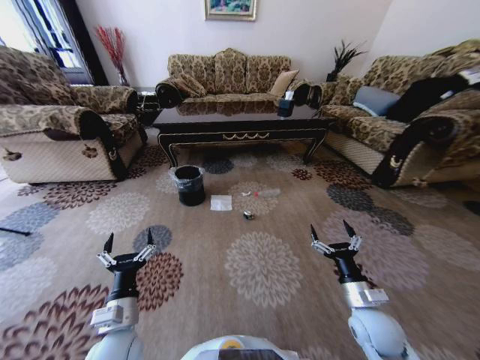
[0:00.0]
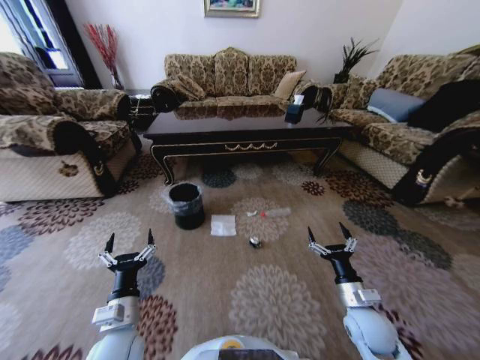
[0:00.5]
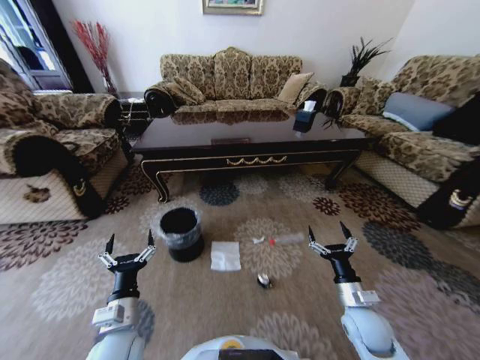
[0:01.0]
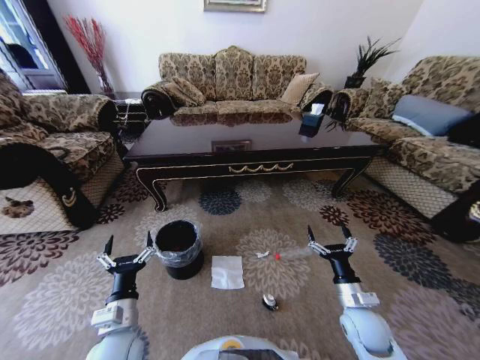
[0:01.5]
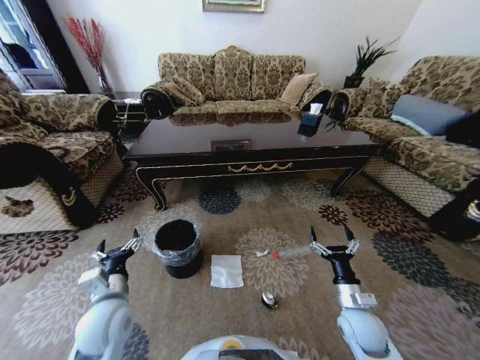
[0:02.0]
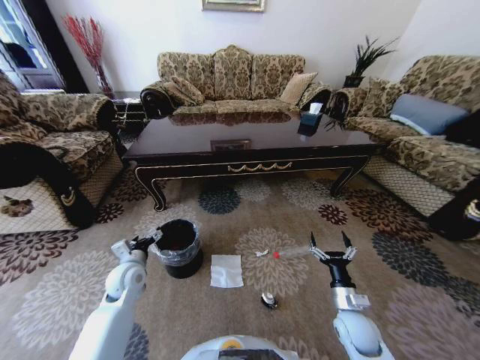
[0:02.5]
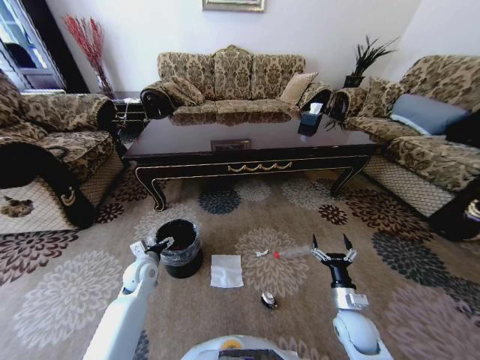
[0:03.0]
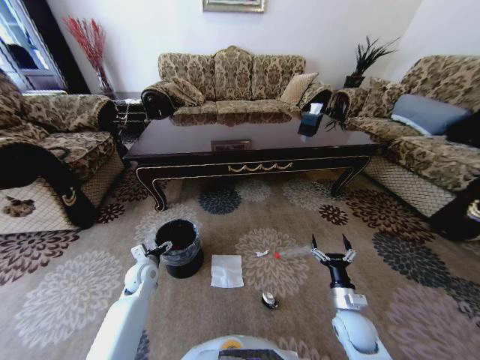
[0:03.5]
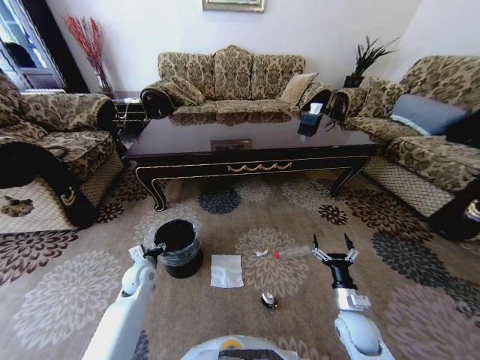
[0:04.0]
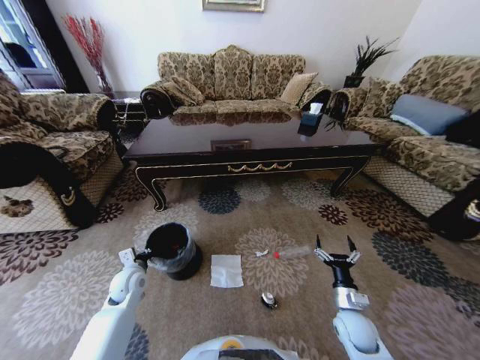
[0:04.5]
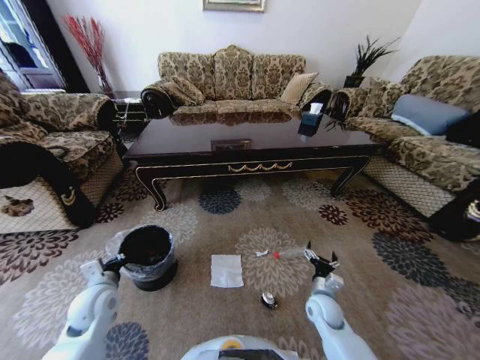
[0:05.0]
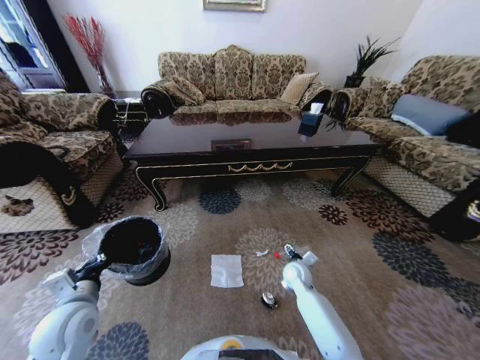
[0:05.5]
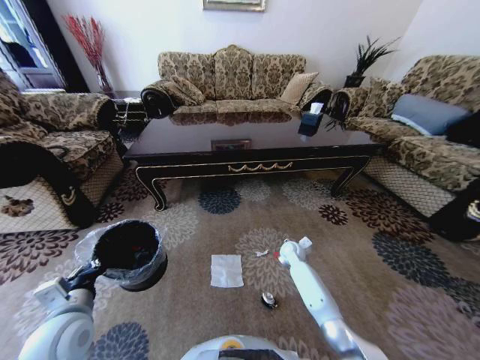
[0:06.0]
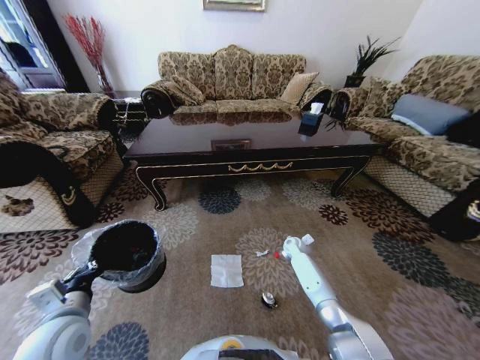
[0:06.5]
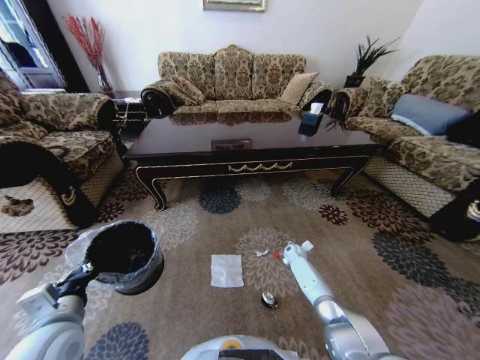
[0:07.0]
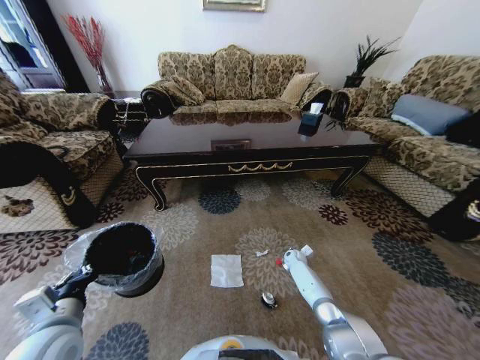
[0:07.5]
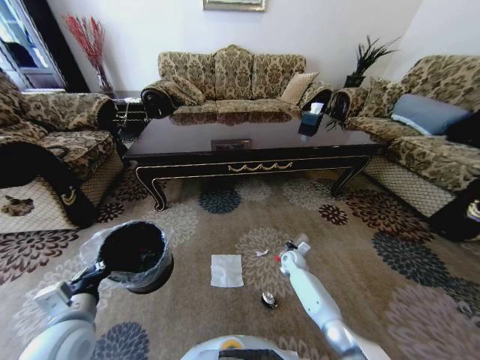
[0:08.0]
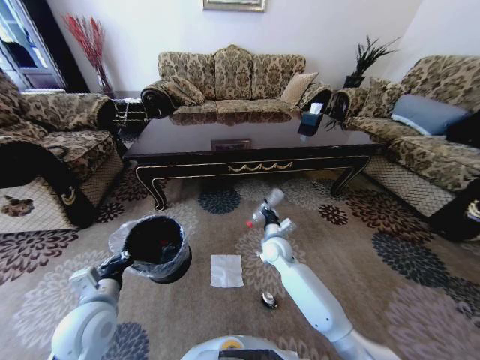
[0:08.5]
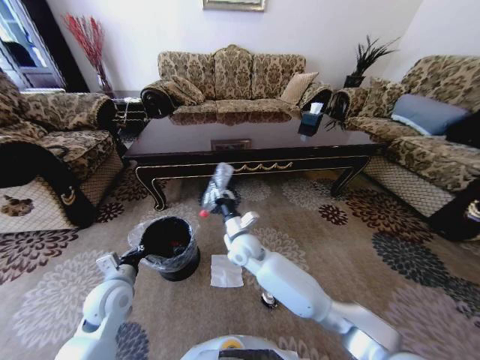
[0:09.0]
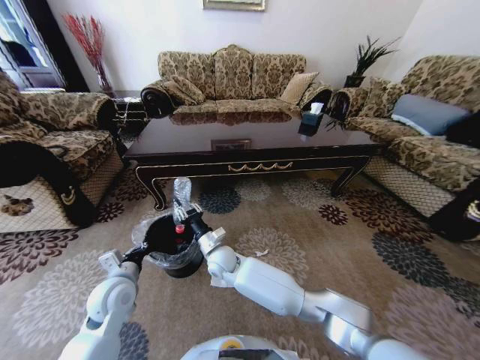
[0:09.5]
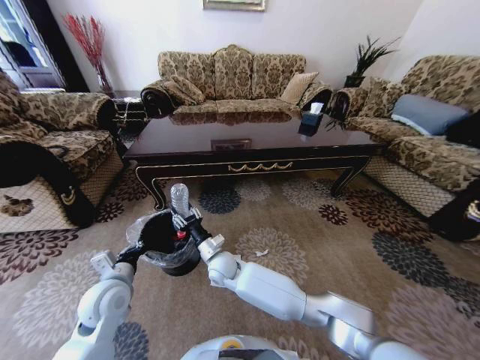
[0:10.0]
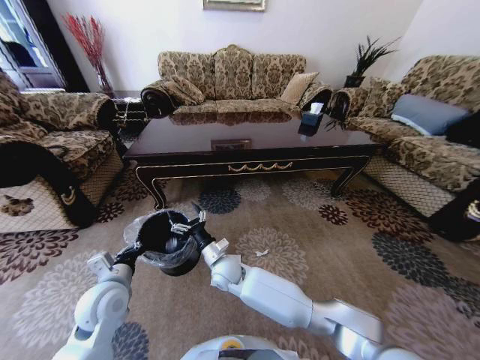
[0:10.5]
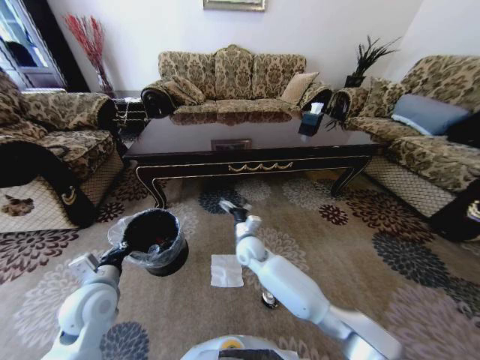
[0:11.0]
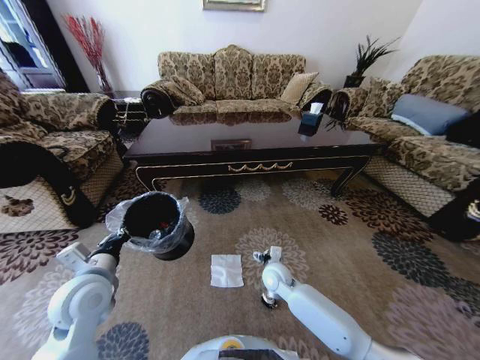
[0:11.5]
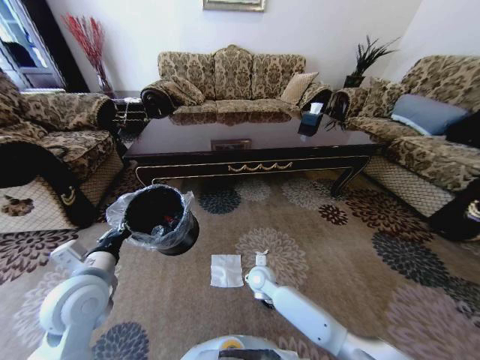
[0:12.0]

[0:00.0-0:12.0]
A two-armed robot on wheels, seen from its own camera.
Task of the whole recording: Move to the front of the table and pick up the trash from the floor, then place it into the trash bin.
0:00.0 to 0:02.0: The left gripper heads forward, covering roughly 5 cm.
0:02.0 to 0:04.0: The left gripper shifts about 20 cm forward and downward, and closes its fingers.
0:04.0 to 0:06.0: The left gripper heads backward and upward, covering about 20 cm, and closes its fingers; the right gripper travels forward by approximately 25 cm.
0:06.0 to 0:08.0: The right gripper closes up.
0:08.0 to 0:10.0: The left gripper heads forward, covering some 10 cm; the right gripper is displaced to the left and upward by roughly 35 cm.
0:10.0 to 0:12.0: The right gripper goes about 15 cm to the right and downward, and opens. The left gripper shifts roughly 10 cm upward.

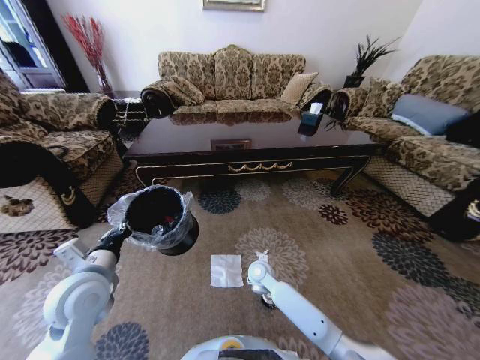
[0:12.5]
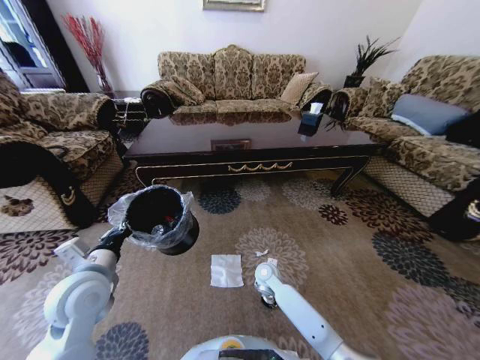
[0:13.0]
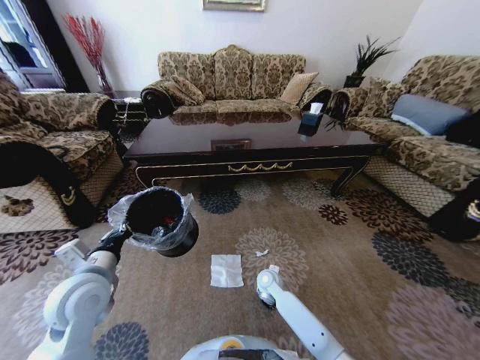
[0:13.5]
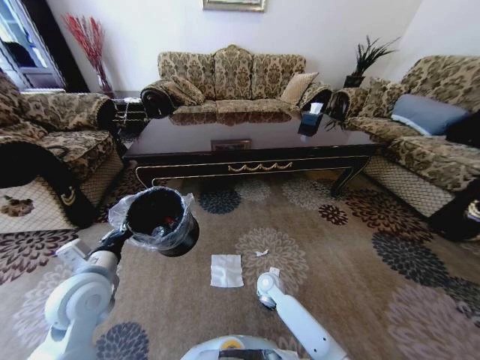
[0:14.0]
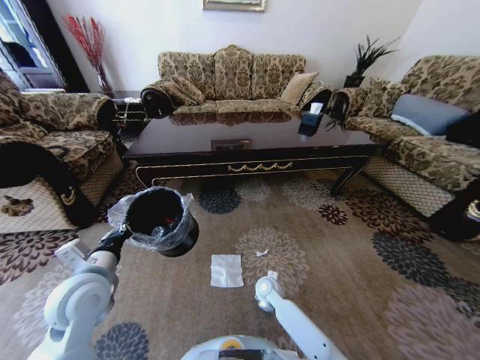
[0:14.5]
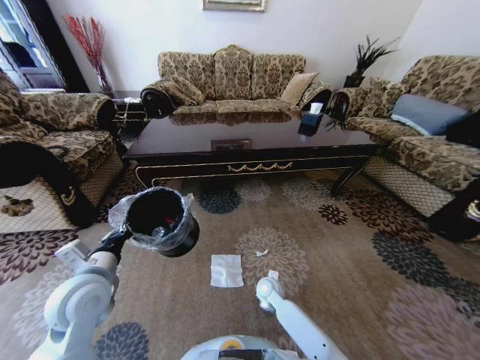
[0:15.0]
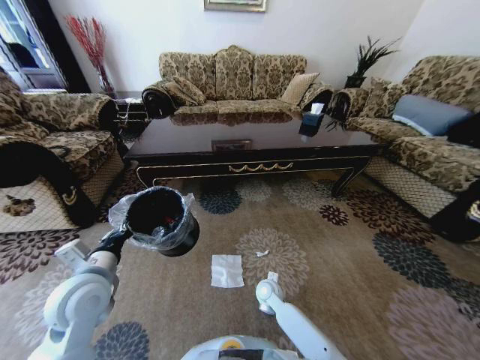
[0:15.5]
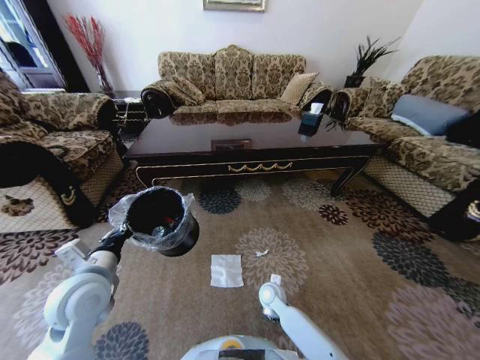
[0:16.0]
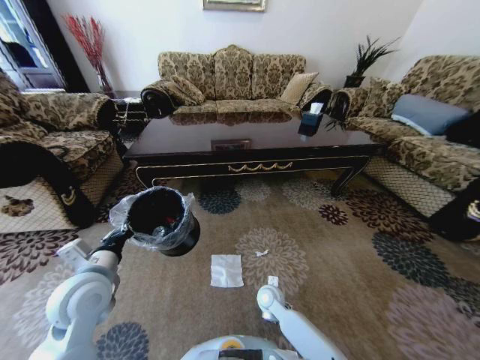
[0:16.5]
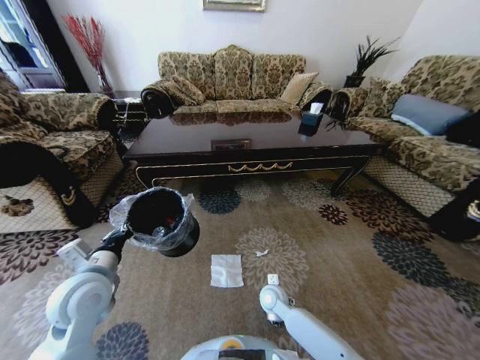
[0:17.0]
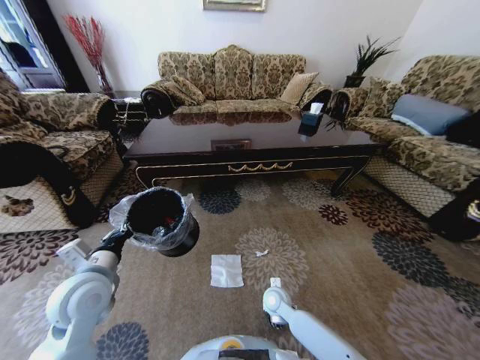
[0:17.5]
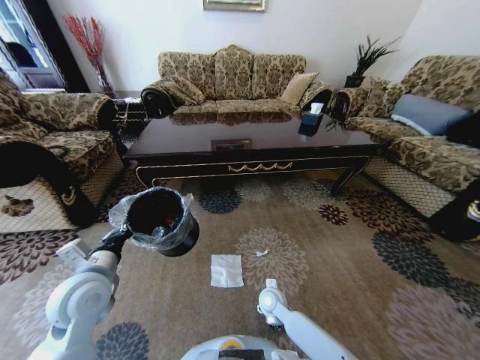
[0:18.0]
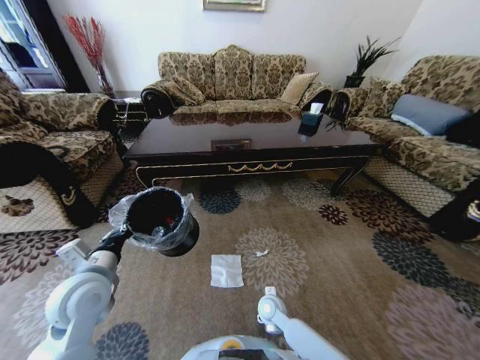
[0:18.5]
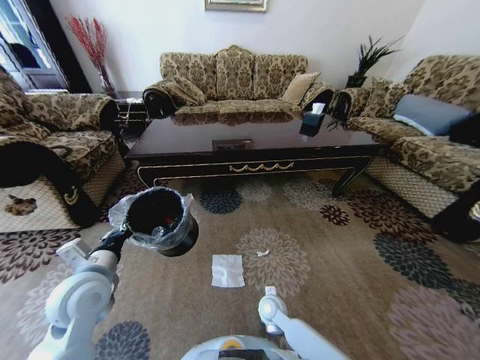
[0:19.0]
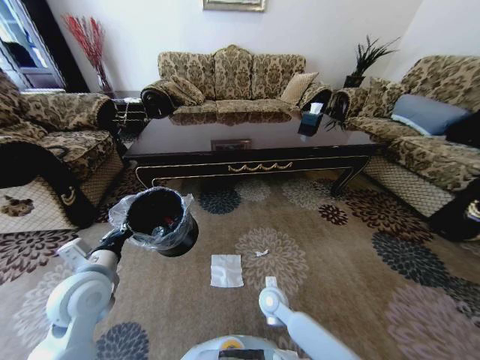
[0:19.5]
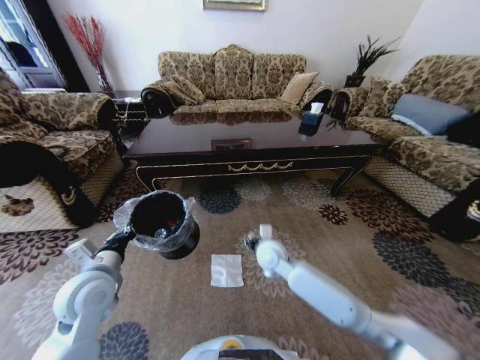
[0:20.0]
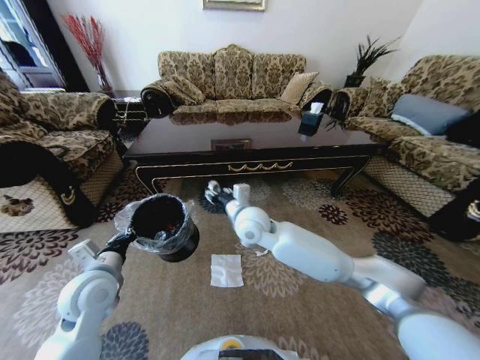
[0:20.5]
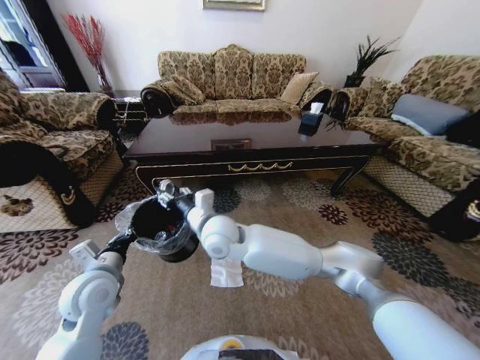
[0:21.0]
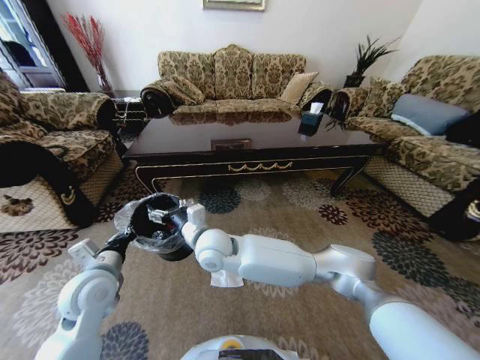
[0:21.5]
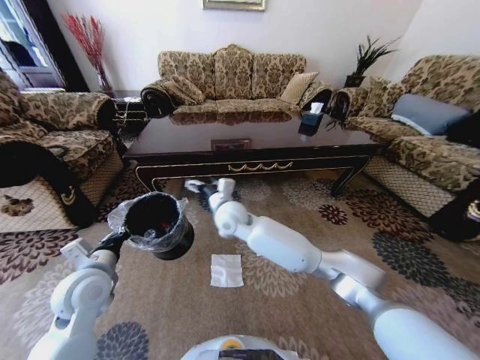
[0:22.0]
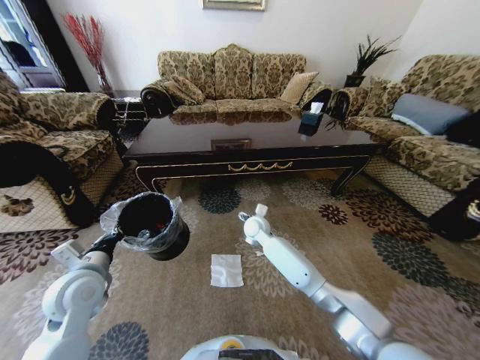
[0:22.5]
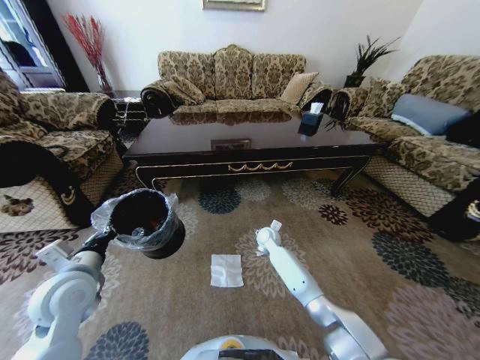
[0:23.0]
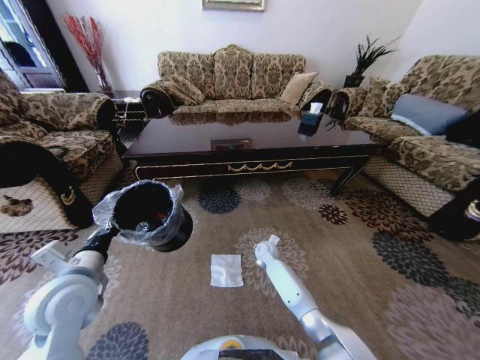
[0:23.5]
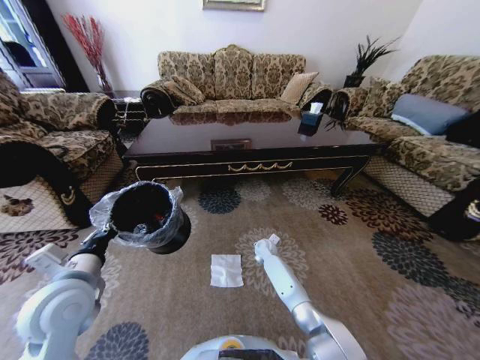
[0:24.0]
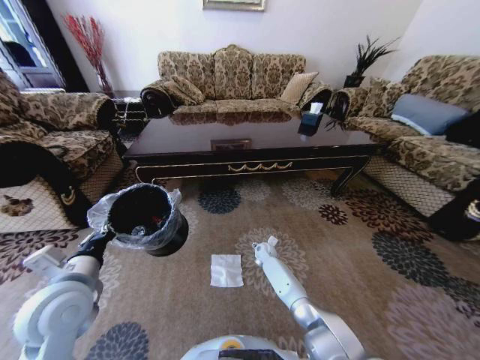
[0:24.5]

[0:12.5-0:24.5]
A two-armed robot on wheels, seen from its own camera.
Task of the whole recording: Move to the front of the table and pick up the trash from the floor, then place it into the trash bin.
0:12.5 to 0:14.5: The right gripper shifts about 5 cm downward.
0:14.5 to 0:16.5: The right gripper closes, then opens again.
0:16.5 to 0:18.5: The grippers make only small movements.
0:18.5 to 0:20.5: The right gripper travels upward and forward by approximately 35 cm, and closes up.
0:20.5 to 0:22.5: The right gripper travels downward and forward by about 15 cm, and opens up.
0:22.5 to 0:24.5: The left gripper shifts by some 5 cm. Meanwhile the right gripper heads downward, covering some 20 cm.

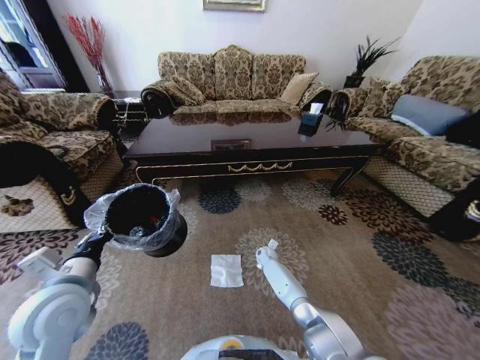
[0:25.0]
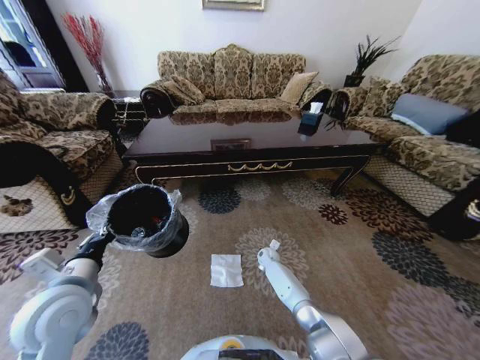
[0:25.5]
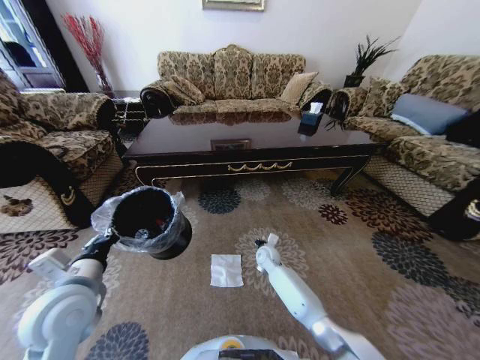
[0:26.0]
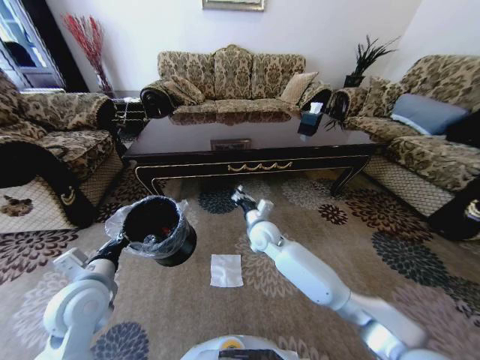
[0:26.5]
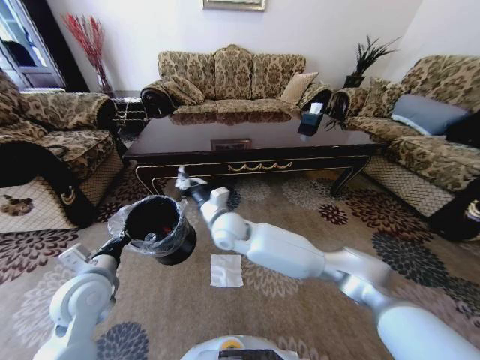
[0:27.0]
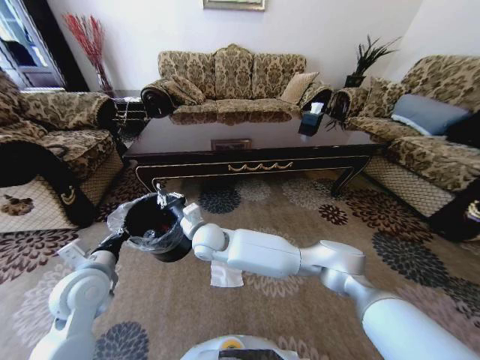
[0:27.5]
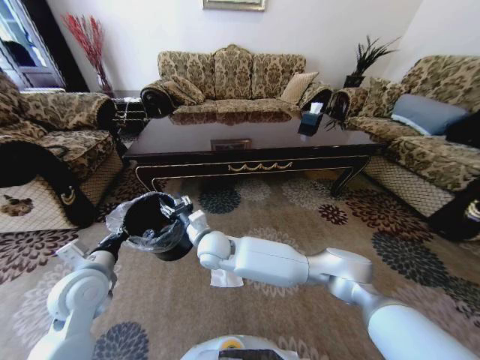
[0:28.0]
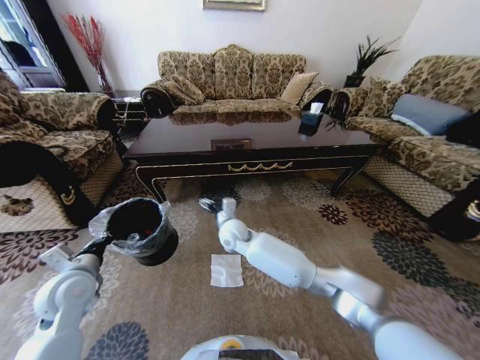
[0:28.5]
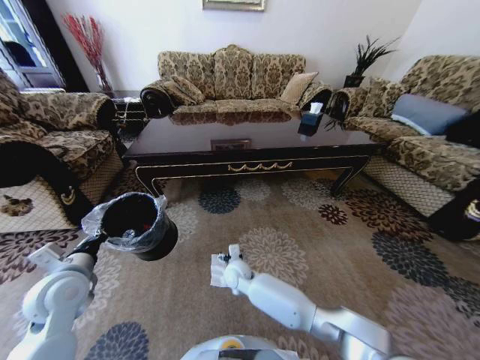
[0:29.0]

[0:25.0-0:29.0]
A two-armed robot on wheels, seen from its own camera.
Task of the whole recording: Move to the front of the table and pick up the trash from the floor, then place it into the trash bin.
0:25.0 to 0:27.0: The right gripper goes about 40 cm upward and to the left, and closes up; the left gripper changes place by about 5 cm.
0:27.0 to 0:29.0: The right gripper moves downward, approximately 20 cm, and opens up, while the left gripper goes some 5 cm to the left.
